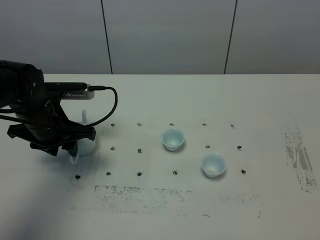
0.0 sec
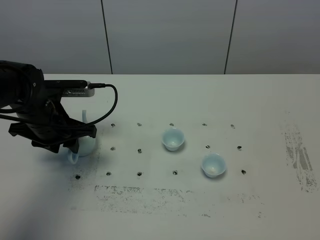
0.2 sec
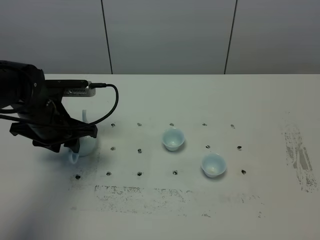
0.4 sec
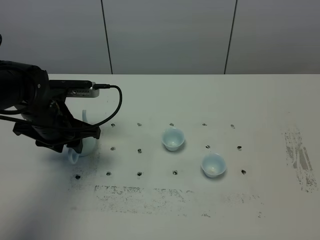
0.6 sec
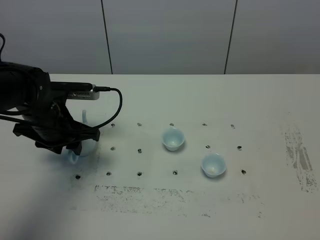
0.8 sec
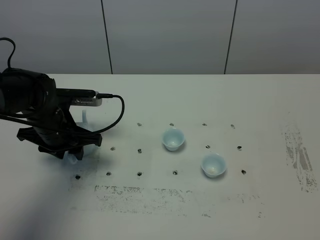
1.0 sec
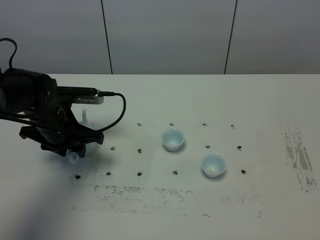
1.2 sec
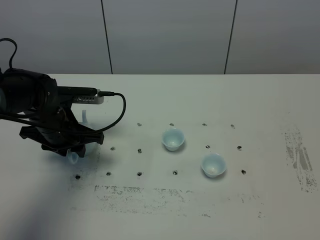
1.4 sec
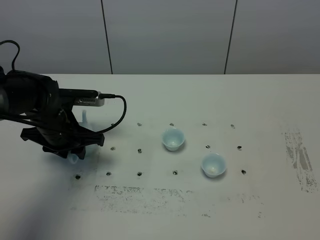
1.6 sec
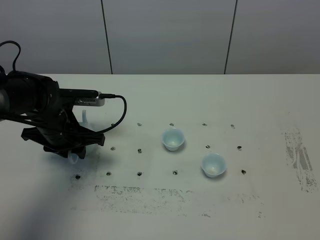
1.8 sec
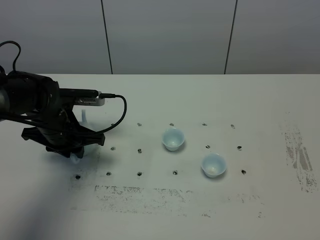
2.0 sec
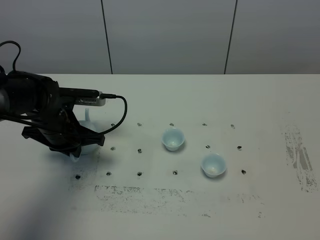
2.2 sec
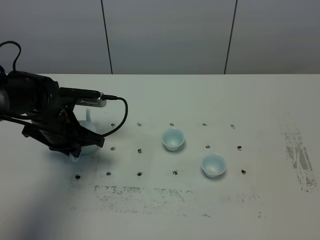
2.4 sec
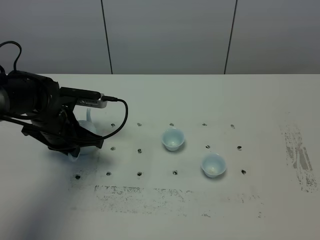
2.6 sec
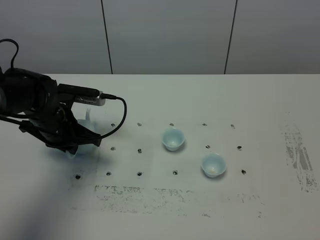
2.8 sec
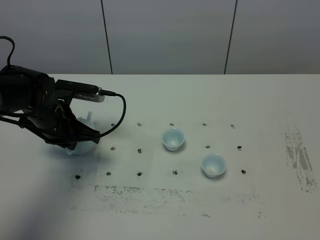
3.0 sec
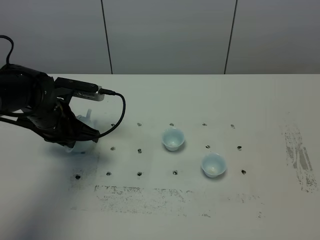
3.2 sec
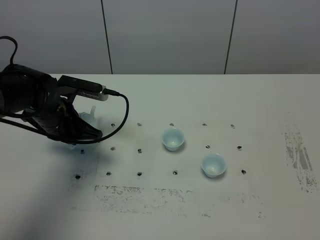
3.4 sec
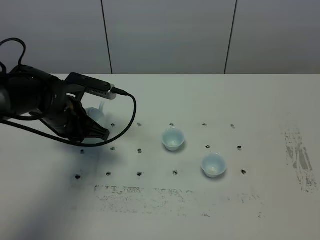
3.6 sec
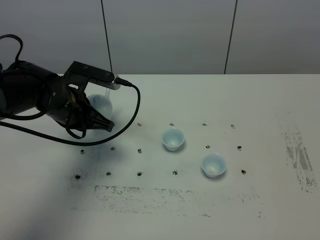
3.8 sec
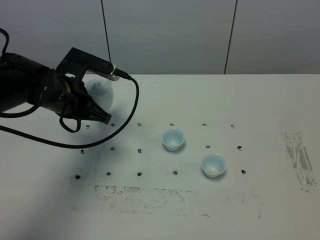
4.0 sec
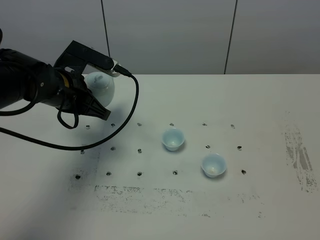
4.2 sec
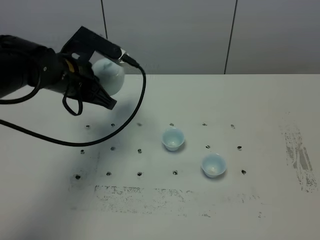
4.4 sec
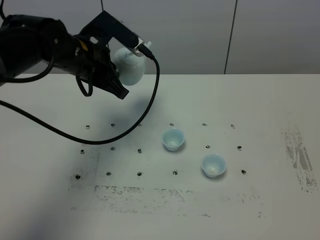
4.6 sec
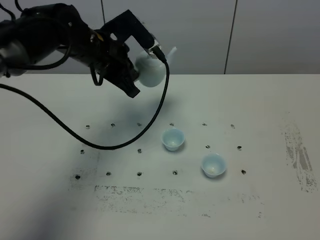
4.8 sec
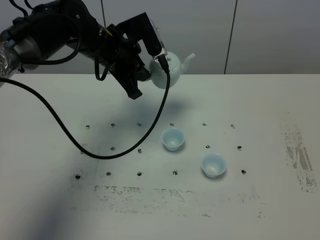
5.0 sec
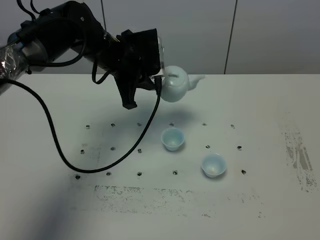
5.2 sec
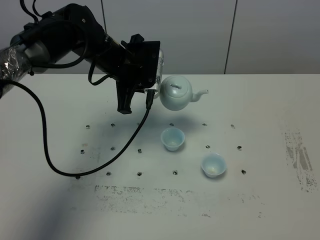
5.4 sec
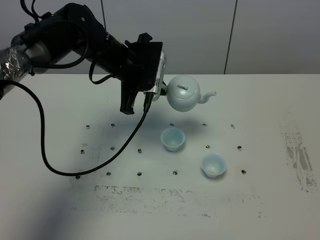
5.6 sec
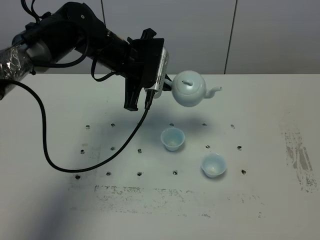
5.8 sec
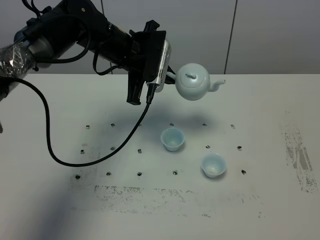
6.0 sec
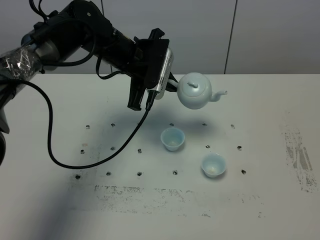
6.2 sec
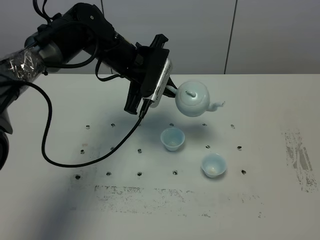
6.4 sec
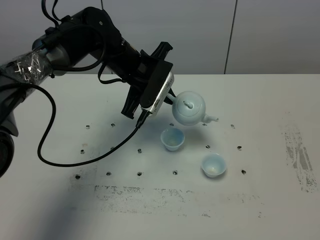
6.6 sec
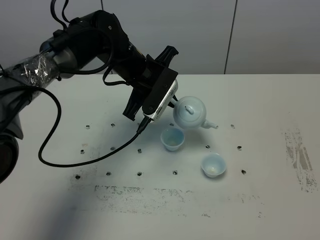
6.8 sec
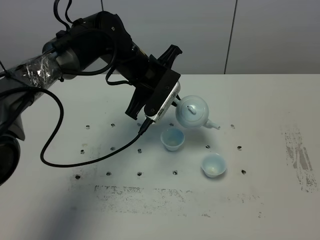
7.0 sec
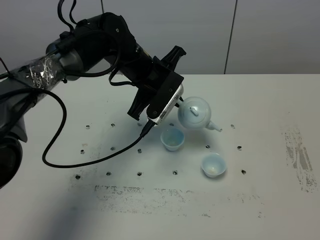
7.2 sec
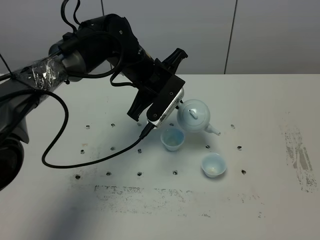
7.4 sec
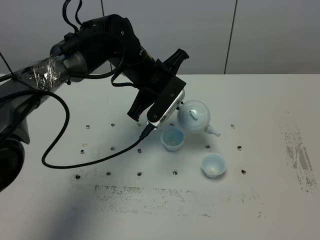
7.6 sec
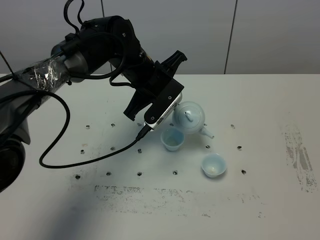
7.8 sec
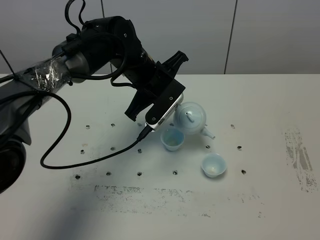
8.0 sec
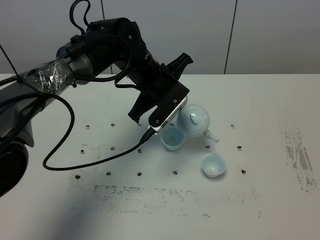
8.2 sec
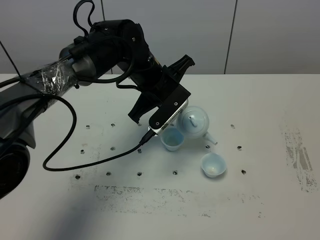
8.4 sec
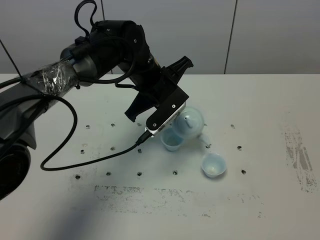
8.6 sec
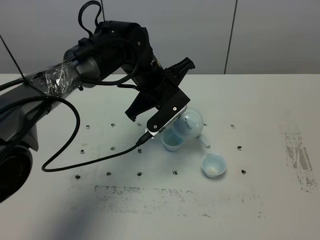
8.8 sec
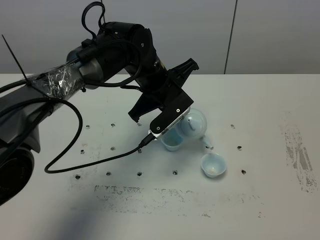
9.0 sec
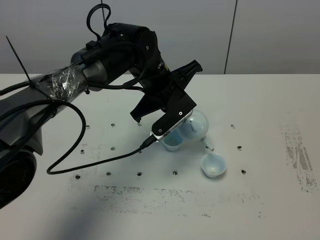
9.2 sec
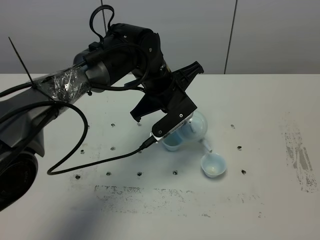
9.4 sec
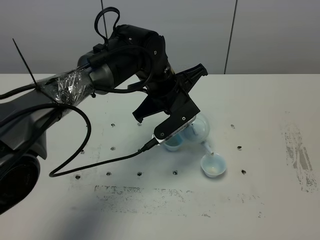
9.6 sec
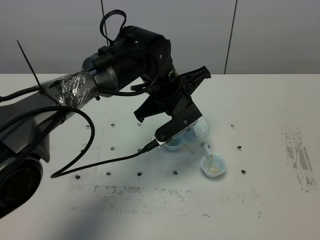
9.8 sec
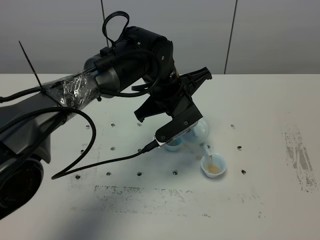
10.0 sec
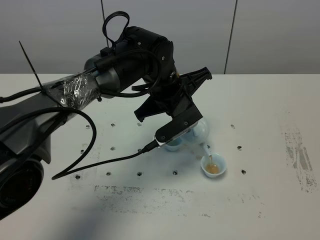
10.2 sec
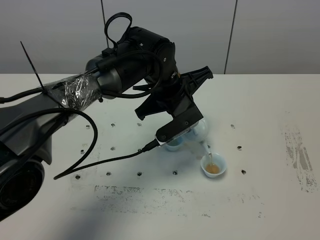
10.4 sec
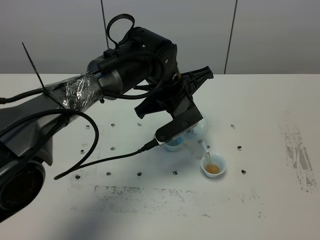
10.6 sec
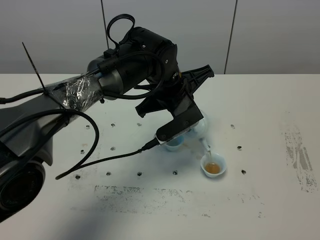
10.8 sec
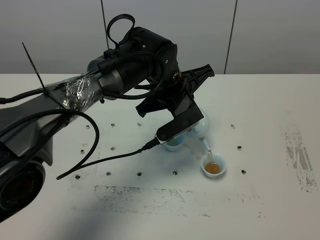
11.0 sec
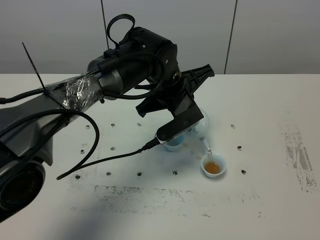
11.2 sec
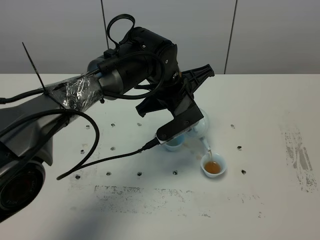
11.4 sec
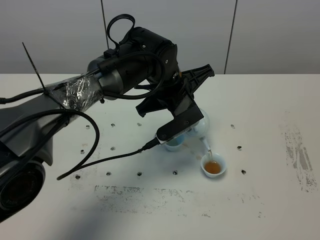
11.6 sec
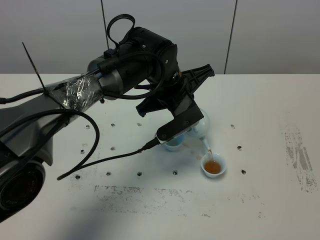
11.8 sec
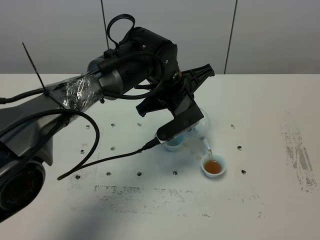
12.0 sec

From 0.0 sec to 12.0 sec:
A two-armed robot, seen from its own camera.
Task of the whole recording: grasp the blue porcelain teapot and pour the tea into the two blue porcelain teacups one by one, put the blue porcelain teapot back in its original place.
Step, from 0.0 sec to 3.6 sec: Pick up the teapot with the left gripper.
From 0.0 sec to 1.6 sec: There are only small adjustments of the grippers.
From 1.6 sec to 3.0 sec: The left gripper closes its fingers.
From 3.0 sec to 4.4 sec: The left gripper goes approximately 10 cm upward.
From 4.4 sec to 6.0 sec: The left gripper goes some 10 cm to the right and forward.
From 6.0 sec to 7.6 sec: The left gripper shifts by about 5 cm.
From 7.6 sec to 9.0 sec: The grippers move only a little.
From 10.4 sec to 12.0 sec: Neither gripper changes place.

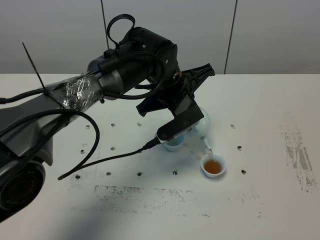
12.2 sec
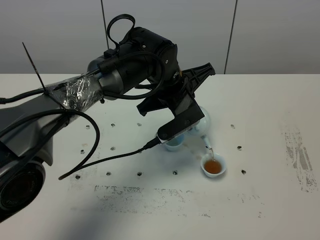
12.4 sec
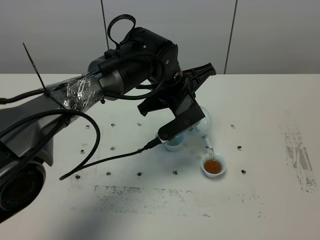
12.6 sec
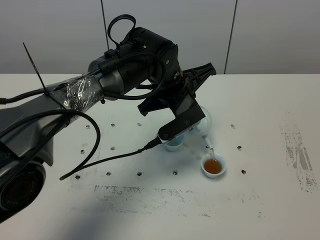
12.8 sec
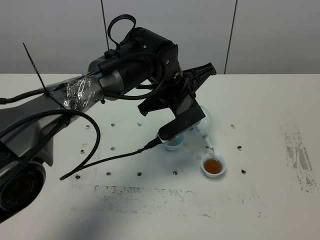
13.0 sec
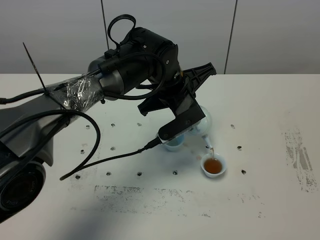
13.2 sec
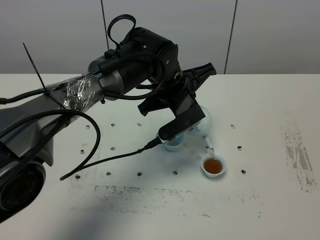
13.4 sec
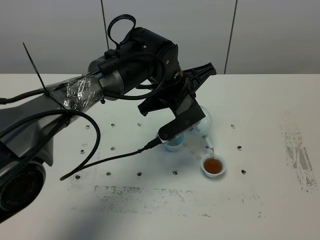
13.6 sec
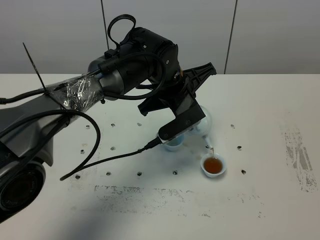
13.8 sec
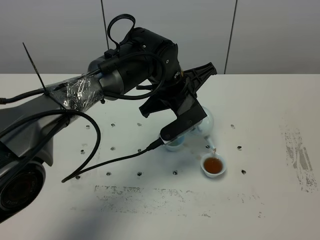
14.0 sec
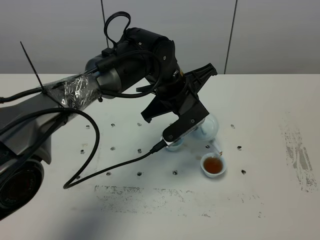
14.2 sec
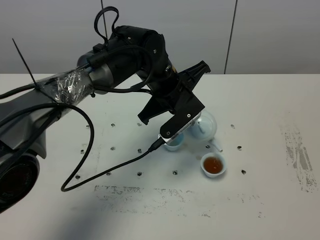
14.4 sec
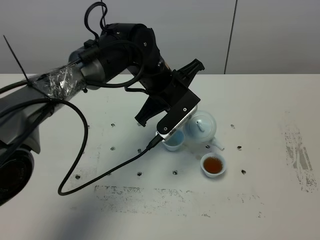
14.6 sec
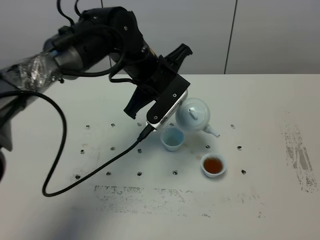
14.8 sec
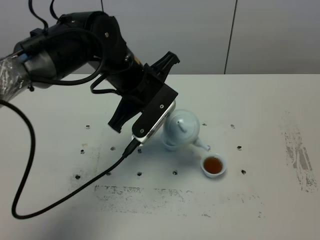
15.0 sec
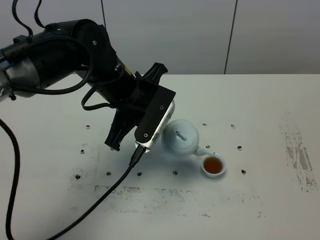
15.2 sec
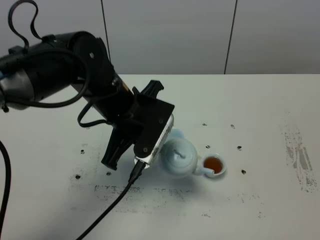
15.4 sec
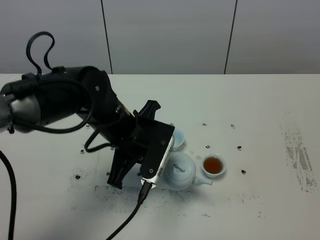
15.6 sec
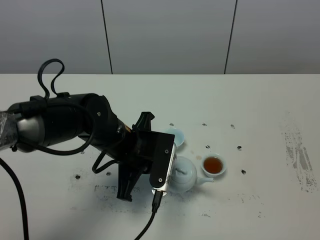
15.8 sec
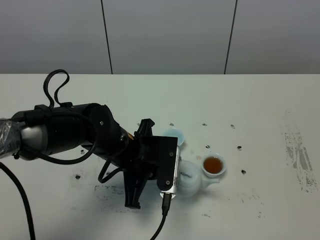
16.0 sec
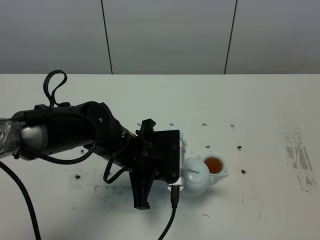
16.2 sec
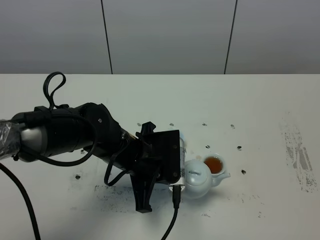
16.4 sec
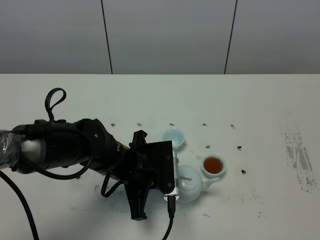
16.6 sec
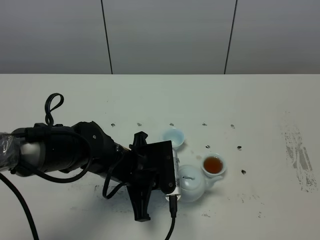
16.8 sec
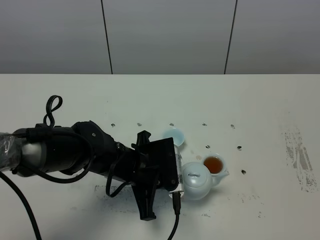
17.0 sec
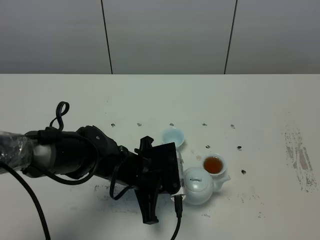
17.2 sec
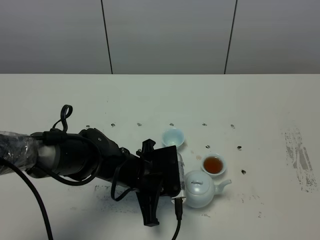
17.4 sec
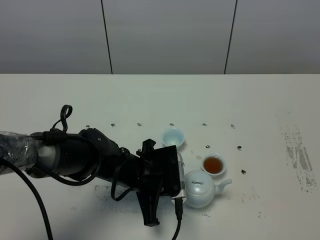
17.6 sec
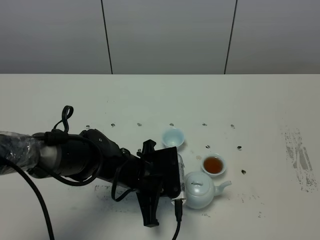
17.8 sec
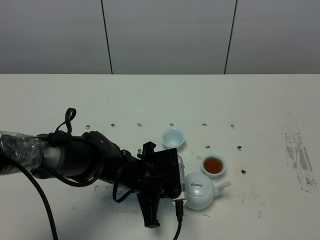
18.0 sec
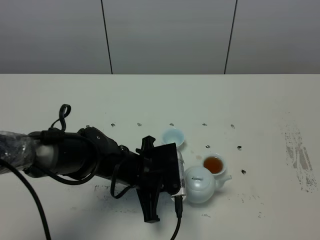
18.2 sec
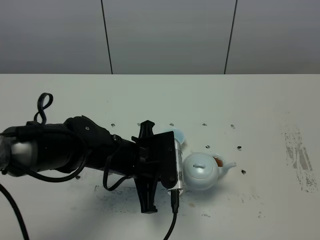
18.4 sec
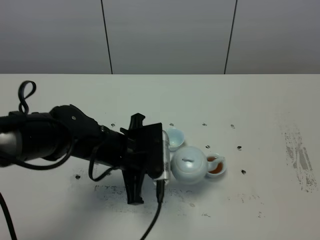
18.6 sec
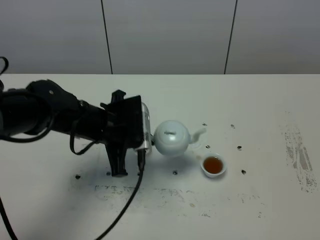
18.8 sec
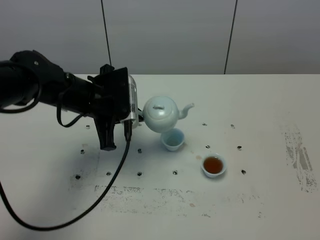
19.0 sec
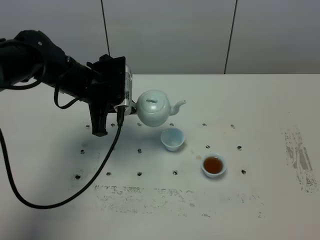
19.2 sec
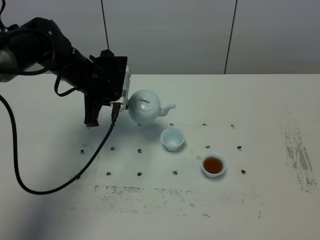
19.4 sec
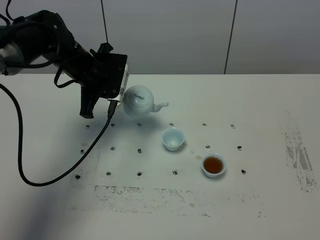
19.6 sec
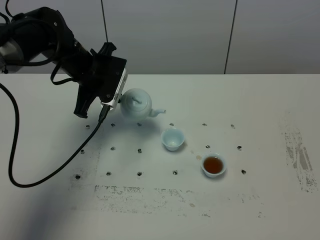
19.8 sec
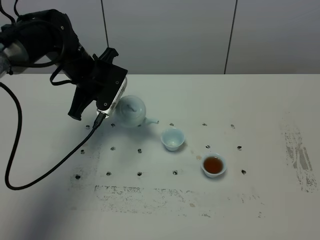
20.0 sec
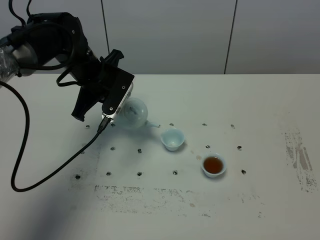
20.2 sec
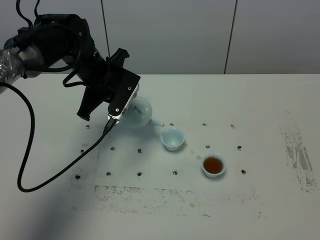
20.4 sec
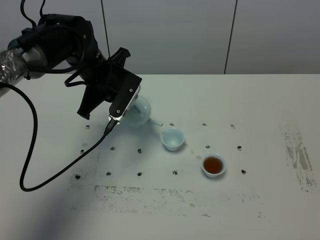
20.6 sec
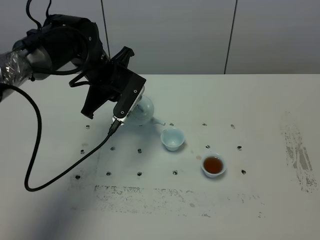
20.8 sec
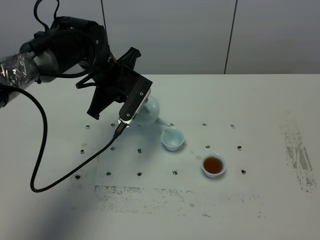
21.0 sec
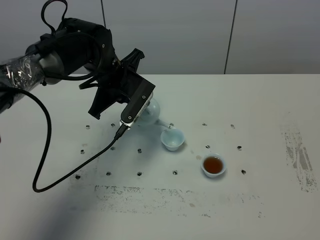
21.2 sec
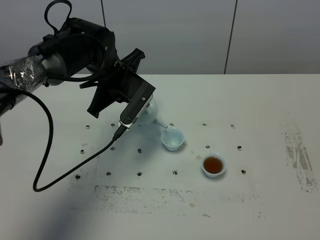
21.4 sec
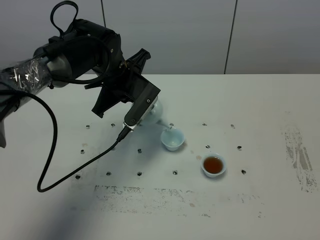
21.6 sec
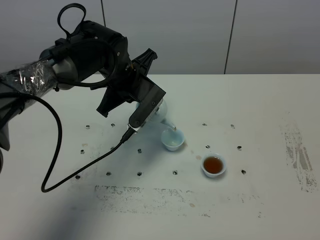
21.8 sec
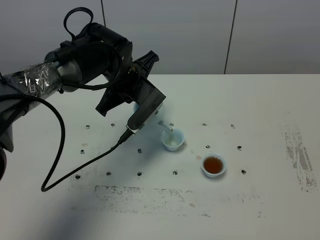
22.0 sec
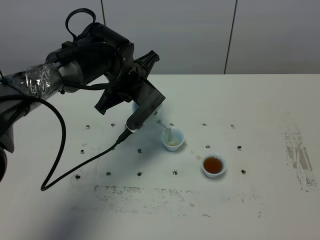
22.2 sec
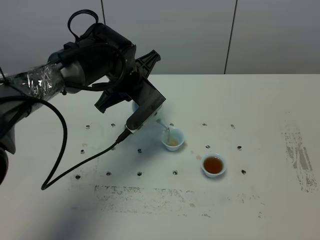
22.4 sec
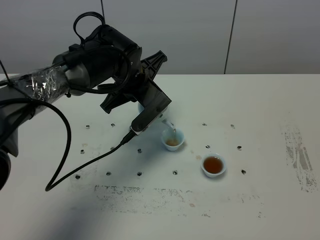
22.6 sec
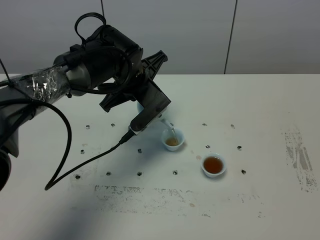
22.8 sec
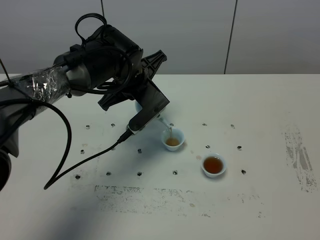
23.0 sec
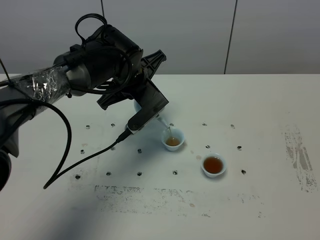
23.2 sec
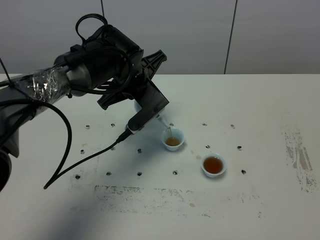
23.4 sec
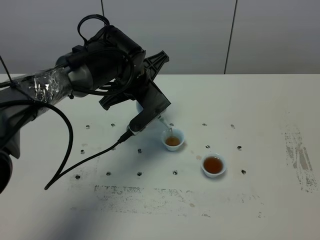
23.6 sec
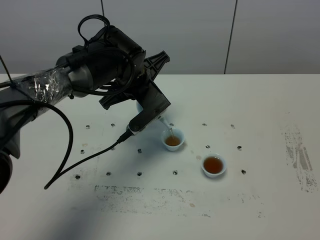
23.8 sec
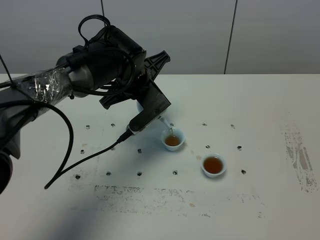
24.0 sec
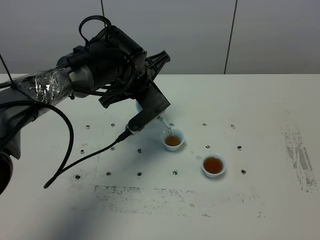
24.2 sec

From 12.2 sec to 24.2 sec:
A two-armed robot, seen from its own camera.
Task of the whole recording: grasp the blue porcelain teapot and pour the tea into the two blue porcelain teacups one by one, put the blue porcelain teapot back in its original place.
Step, from 12.2 sec to 14.4 sec: Pour tea into the teacup with the left gripper.
From 12.2 sec to 13.8 sec: Both grippers stay about where they are.
From 13.8 sec to 15.2 sec: The left gripper shifts approximately 10 cm to the left and backward.
From 15.2 sec to 16.6 sec: The left gripper goes approximately 15 cm downward and backward.
From 16.6 sec to 18.2 sec: There are only small adjustments of the grippers.
From 18.2 sec to 19.8 sec: The left gripper goes roughly 20 cm forward, upward and to the left.
From 19.8 sec to 21.2 sec: The left gripper moves to the right, roughly 5 cm.
From 21.2 sec to 22.6 sec: The grippers stay close to where they were, moving slightly.
From 22.6 sec to 24.2 sec: The grippers move only a little.
